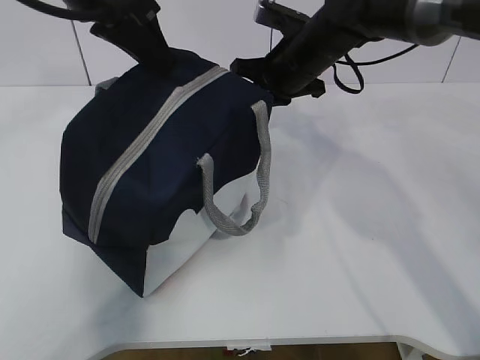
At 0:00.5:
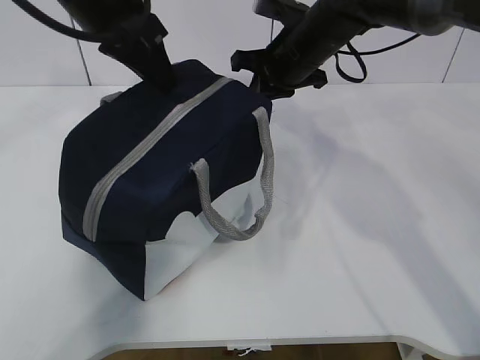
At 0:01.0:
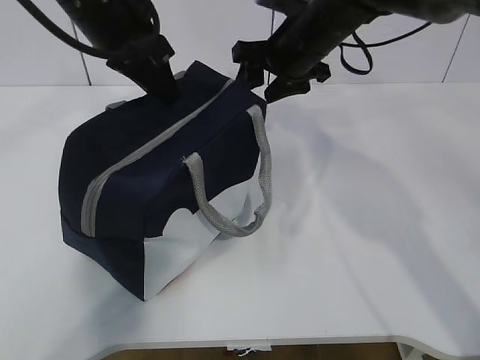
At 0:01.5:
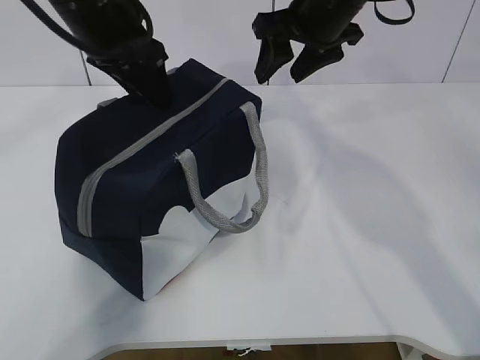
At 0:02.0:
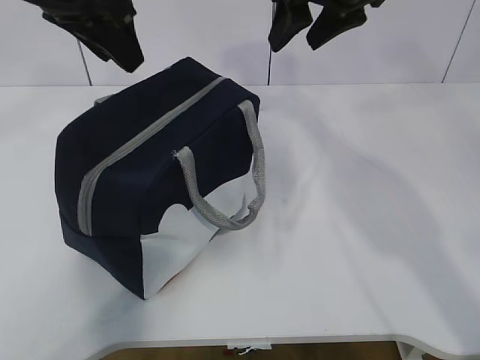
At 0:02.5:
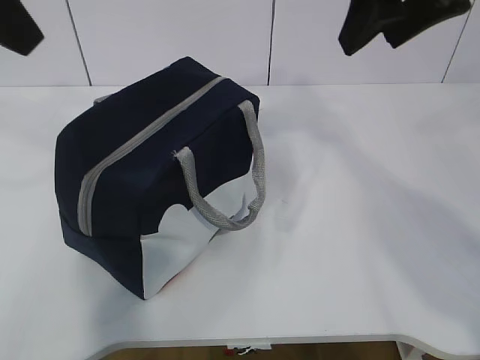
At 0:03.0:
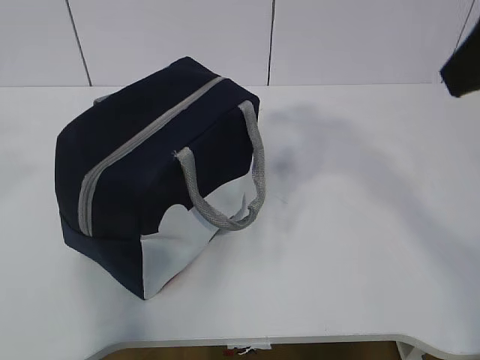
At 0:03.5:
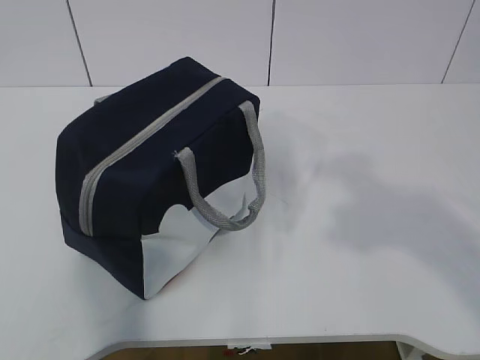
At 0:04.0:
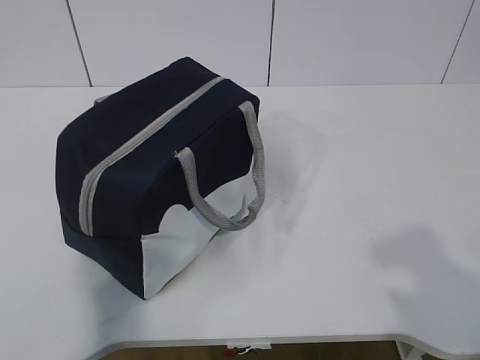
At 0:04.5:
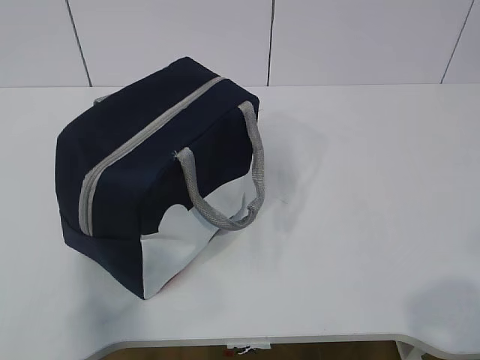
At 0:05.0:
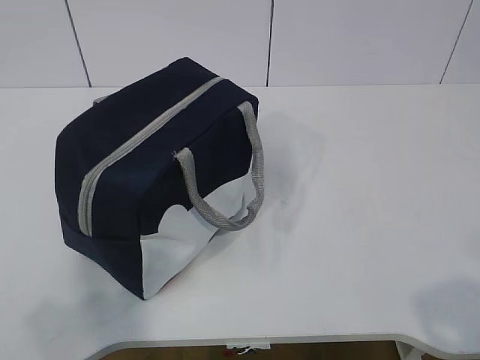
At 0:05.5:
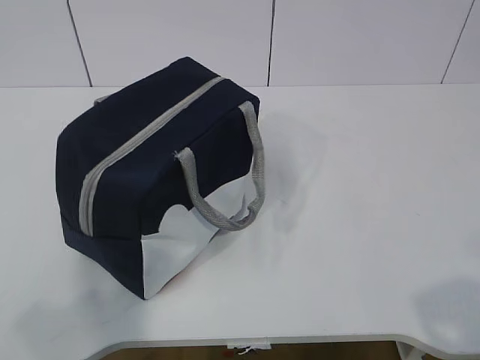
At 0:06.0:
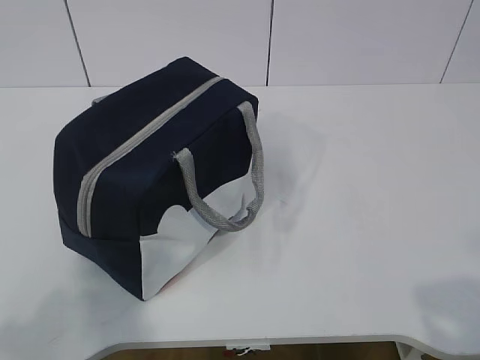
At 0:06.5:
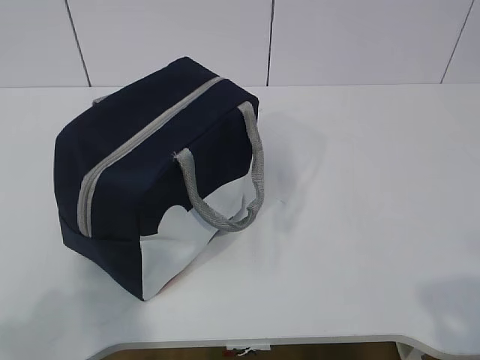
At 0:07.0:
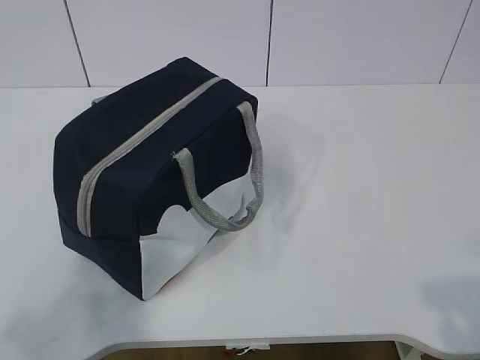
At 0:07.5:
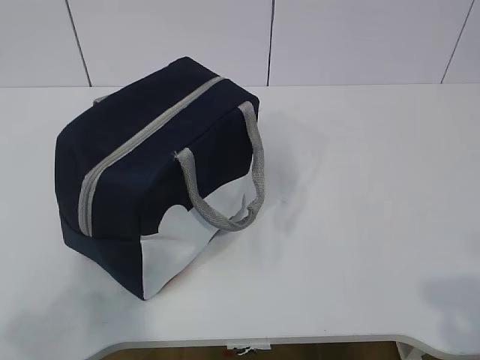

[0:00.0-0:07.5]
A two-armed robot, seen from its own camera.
0:00.0 to 0:02.0: The right gripper moves upward and backward, roughly 15 cm, and opens up. The left gripper opens up.
0:02.0 to 0:04.0: The right gripper goes roughly 40 cm backward. Meanwhile the left gripper travels backward and to the left by roughly 40 cm.

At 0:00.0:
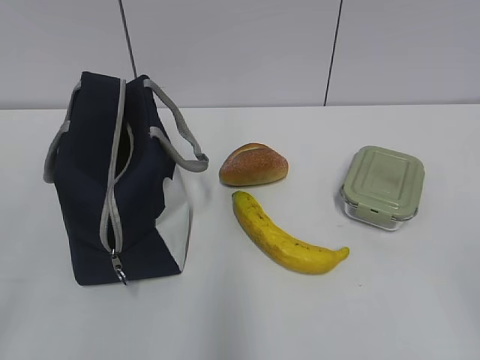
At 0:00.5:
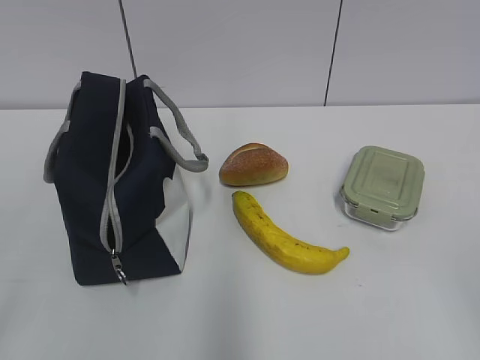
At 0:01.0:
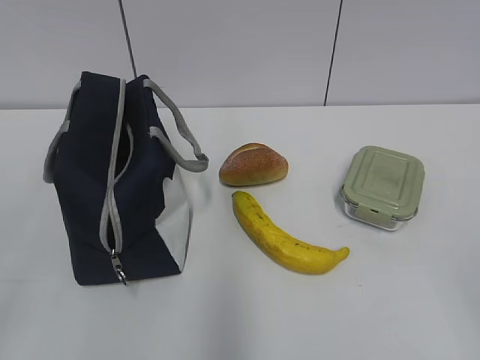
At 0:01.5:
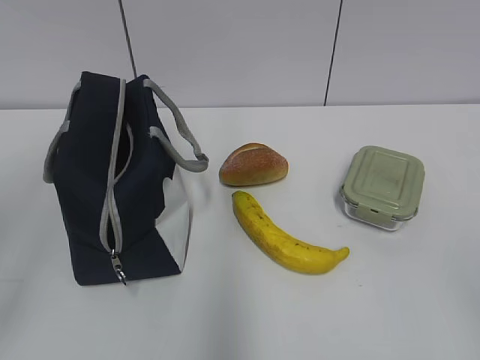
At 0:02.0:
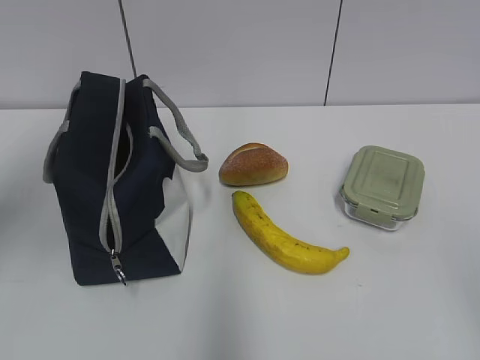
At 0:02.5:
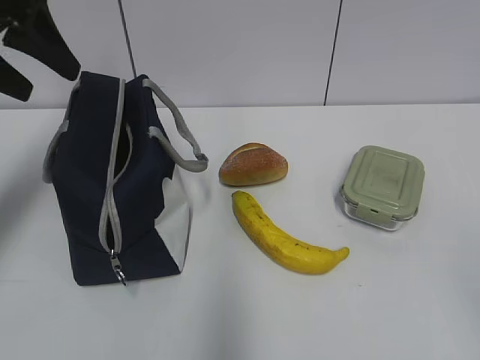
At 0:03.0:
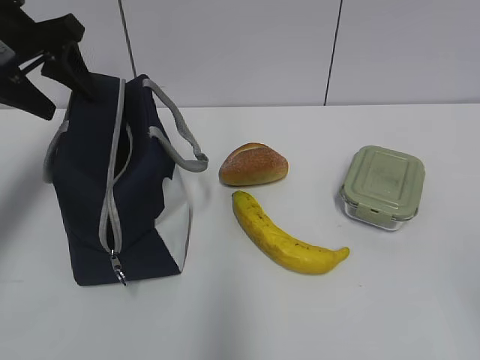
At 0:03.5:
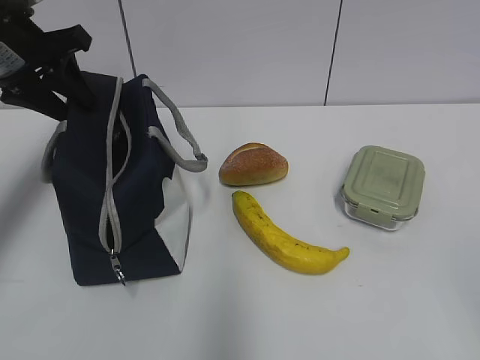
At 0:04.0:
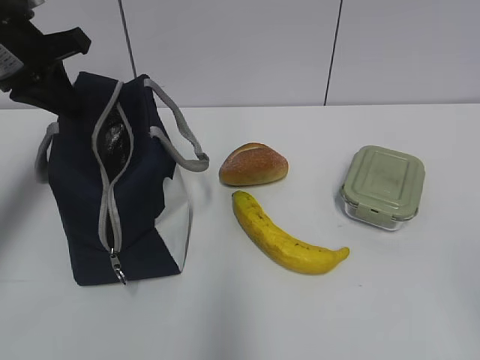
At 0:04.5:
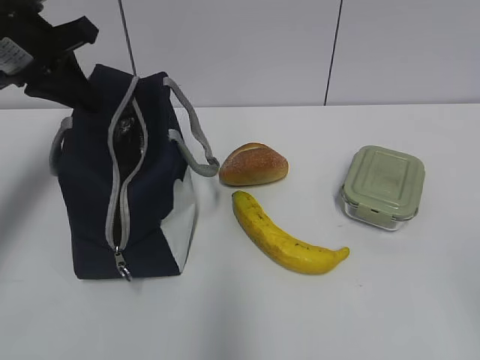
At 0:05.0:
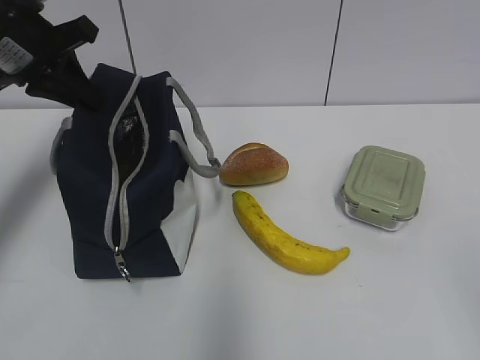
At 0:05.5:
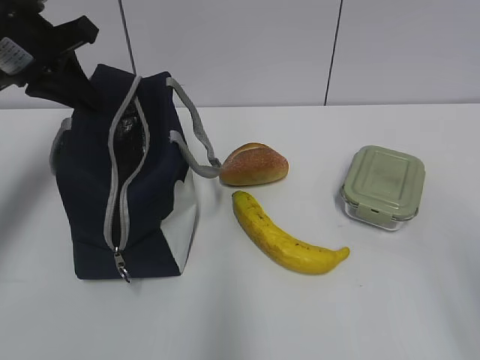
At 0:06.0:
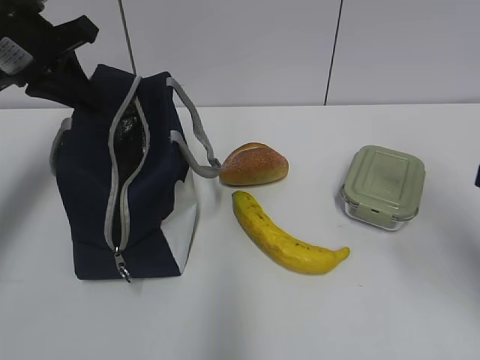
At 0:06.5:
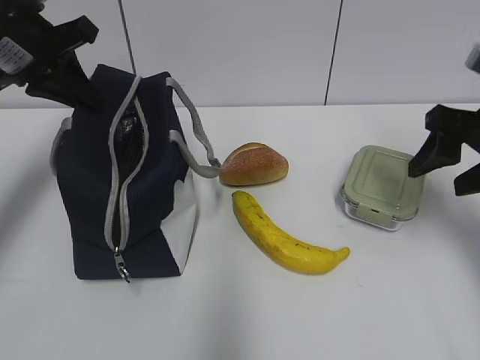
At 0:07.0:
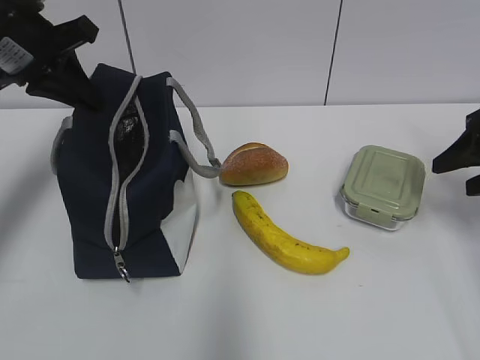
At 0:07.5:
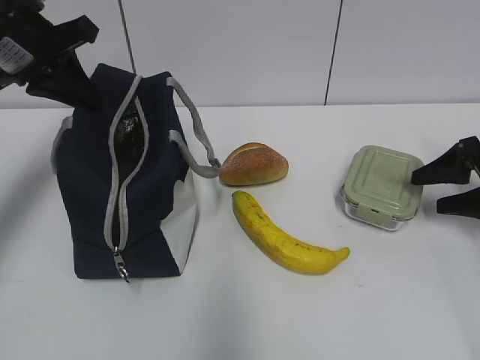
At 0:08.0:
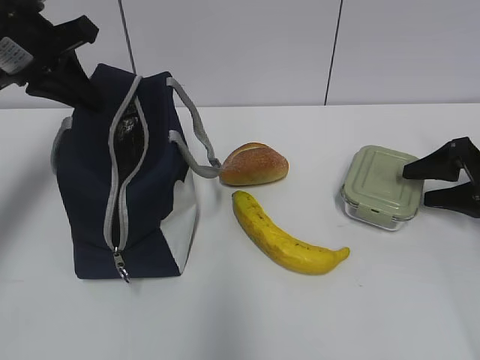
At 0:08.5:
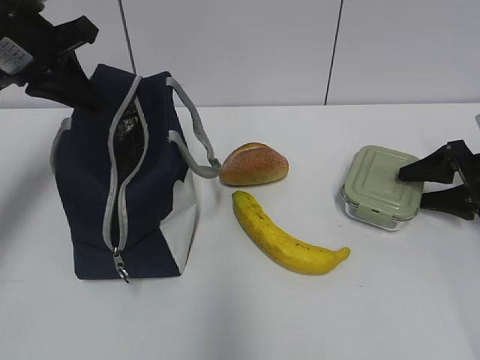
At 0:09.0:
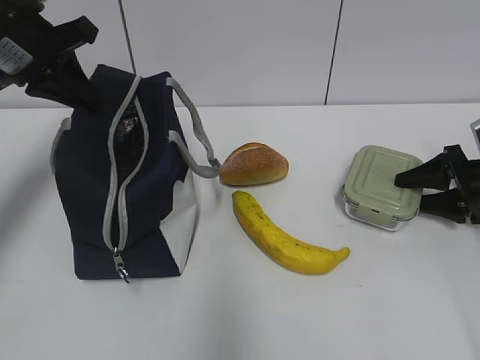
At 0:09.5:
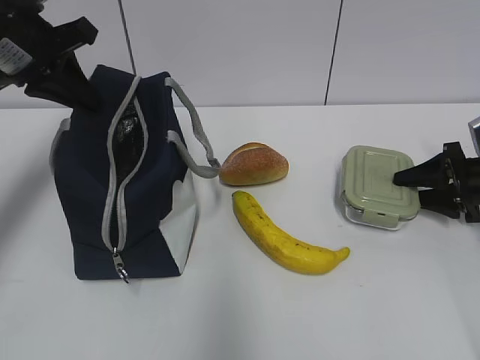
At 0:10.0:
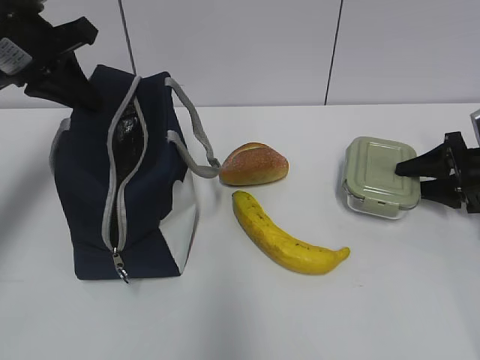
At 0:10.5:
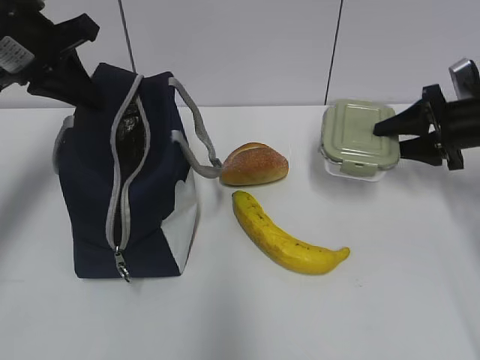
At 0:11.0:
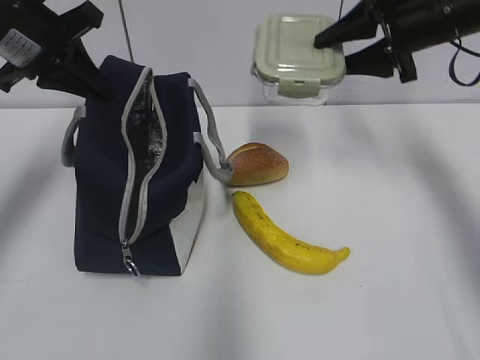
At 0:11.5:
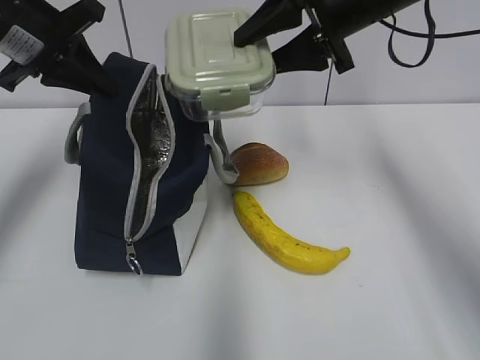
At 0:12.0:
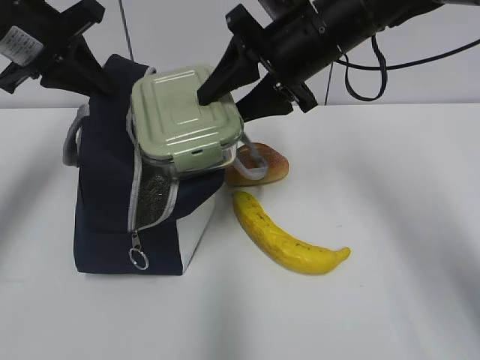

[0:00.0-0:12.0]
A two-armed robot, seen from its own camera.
0:02.0 to 0:04.0: The left gripper shifts about 20 cm forward and downward, and closes.
0:04.0 to 0:06.0: The right gripper travels forward by about 15 cm.
0:06.0 to 0:08.0: The right gripper is displaced forward, downward and to the right by about 25 cm.
0:08.0 to 0:10.0: The grippers stay close to where they were, moving slightly.
0:10.0 to 0:12.0: The right gripper moves to the left and upward, roughly 35 cm.

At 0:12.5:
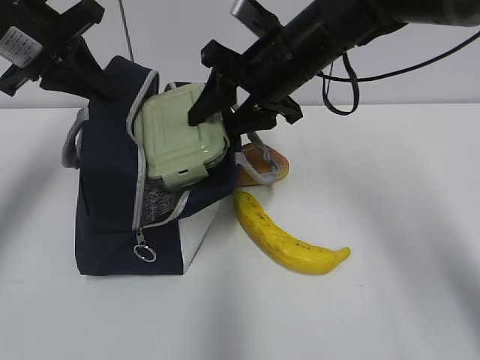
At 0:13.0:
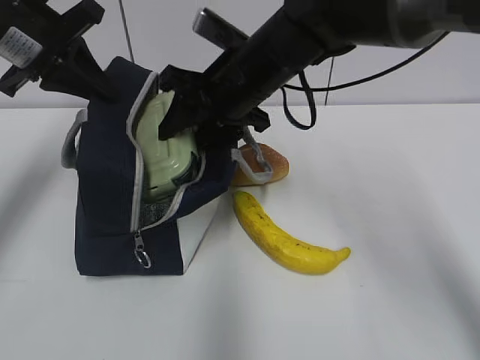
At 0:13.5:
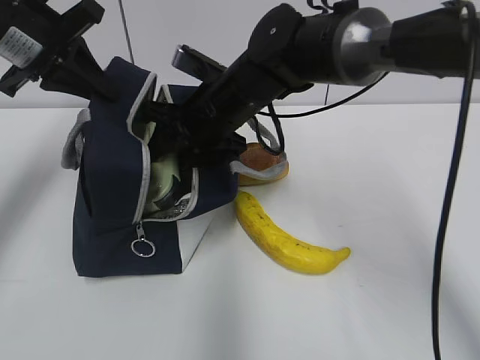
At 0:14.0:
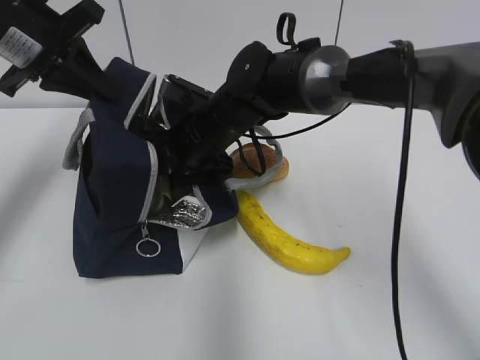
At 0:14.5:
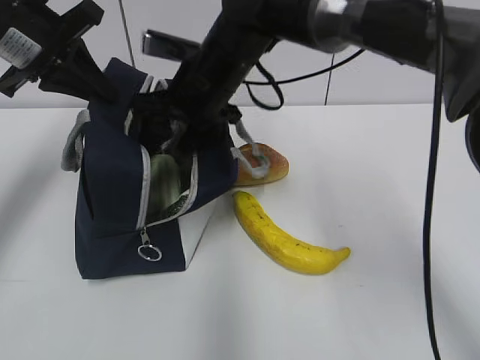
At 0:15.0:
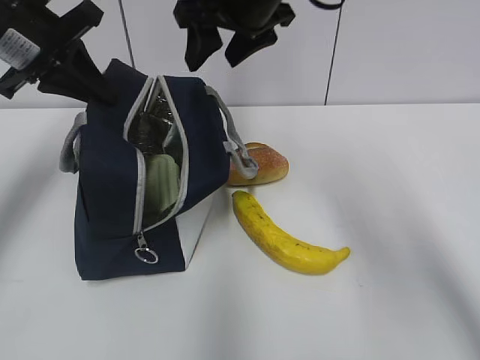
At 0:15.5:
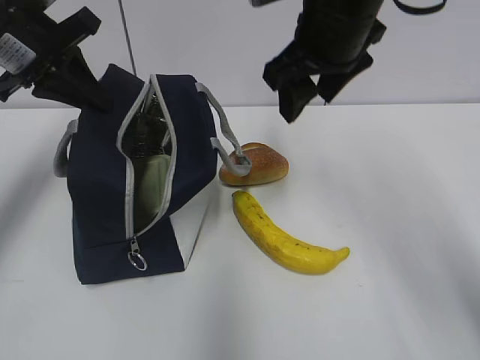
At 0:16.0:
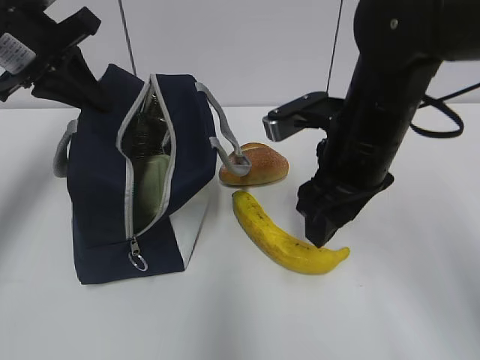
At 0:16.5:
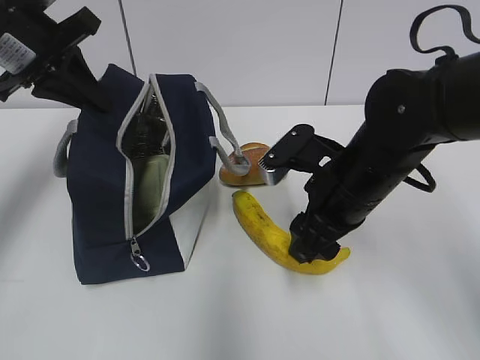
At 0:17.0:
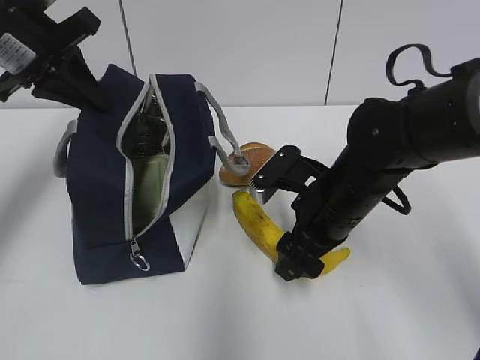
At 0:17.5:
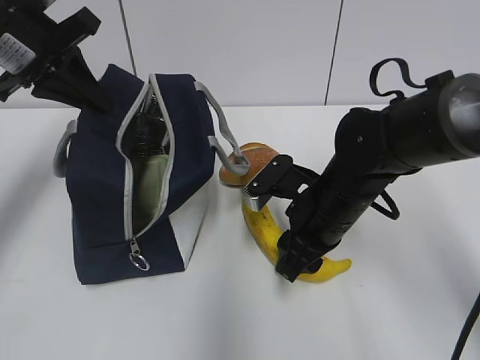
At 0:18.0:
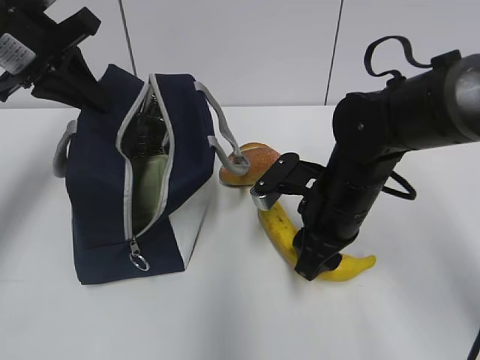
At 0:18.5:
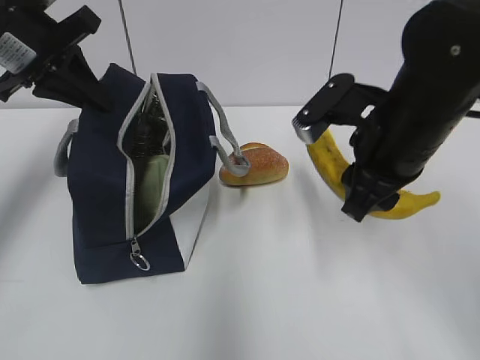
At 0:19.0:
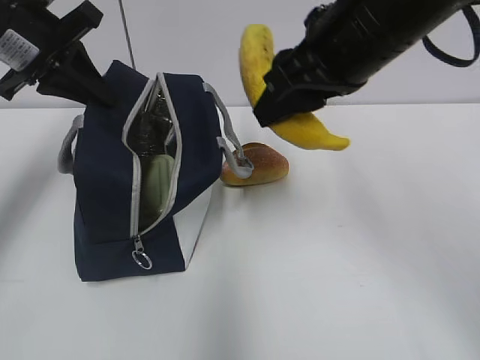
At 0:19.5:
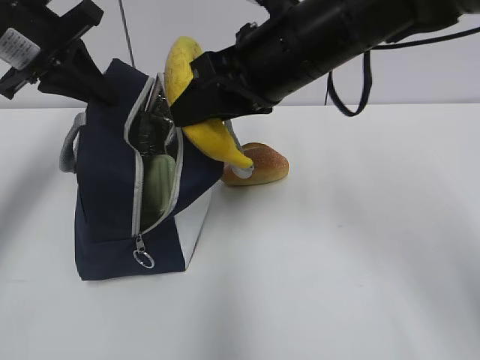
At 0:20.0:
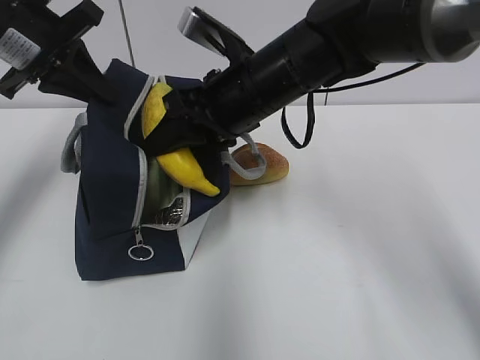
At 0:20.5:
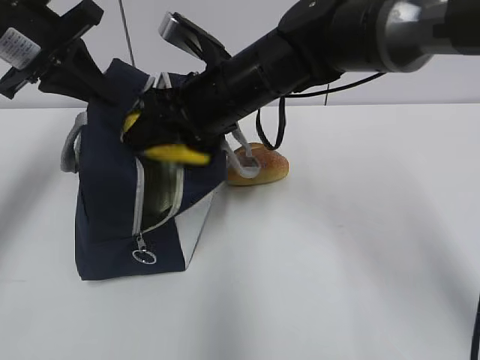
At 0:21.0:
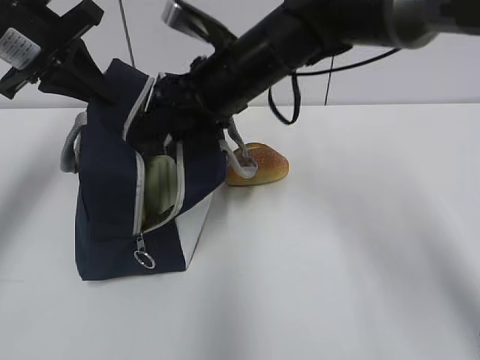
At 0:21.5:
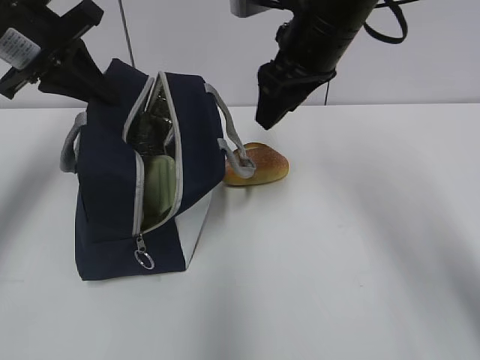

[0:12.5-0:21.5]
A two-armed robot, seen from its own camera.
0:12.5 to 0:14.5: The right gripper shifts some 10 cm to the left, and goes downward and returns, approximately 10 cm each way.
0:14.5 to 0:17.0: The right gripper heads to the right, backward and downward, covering roughly 20 cm.
0:17.0 to 0:19.5: The right gripper moves upward, approximately 15 cm, and closes.
0:19.5 to 0:21.5: The right gripper moves forward, approximately 5 cm.
